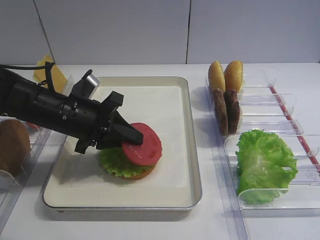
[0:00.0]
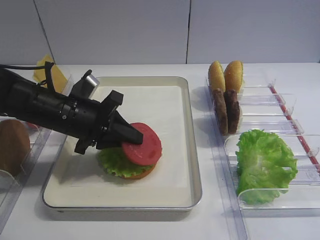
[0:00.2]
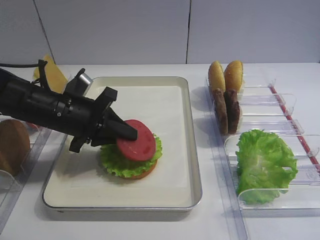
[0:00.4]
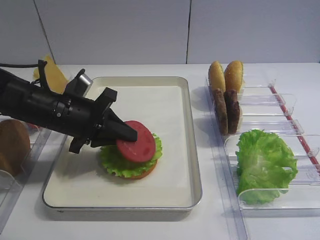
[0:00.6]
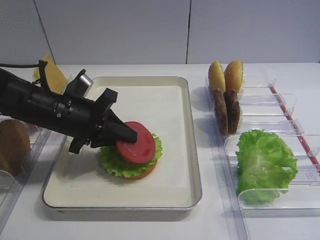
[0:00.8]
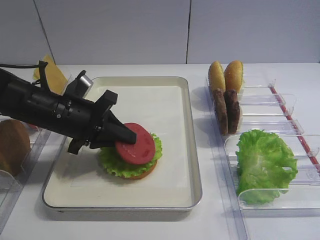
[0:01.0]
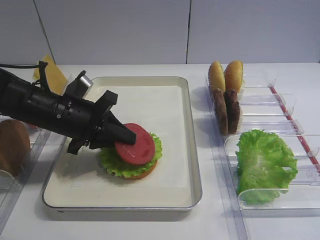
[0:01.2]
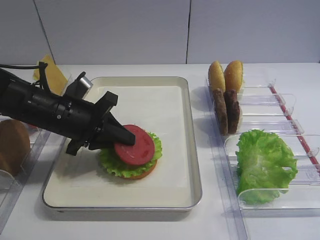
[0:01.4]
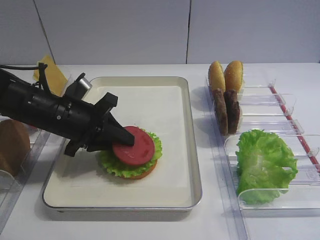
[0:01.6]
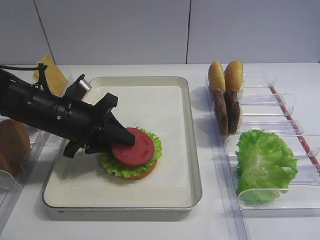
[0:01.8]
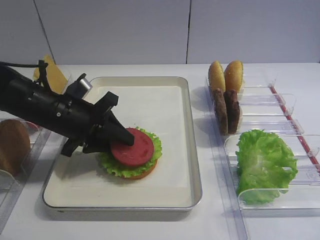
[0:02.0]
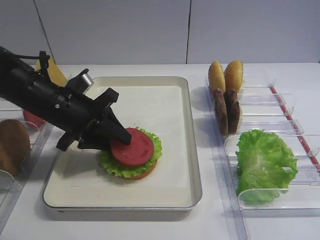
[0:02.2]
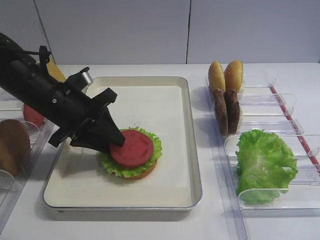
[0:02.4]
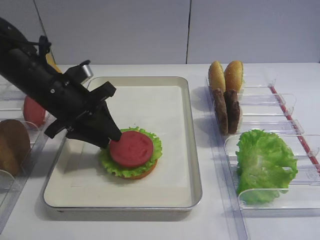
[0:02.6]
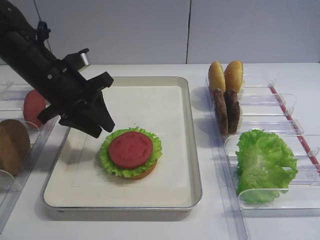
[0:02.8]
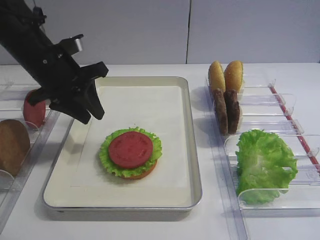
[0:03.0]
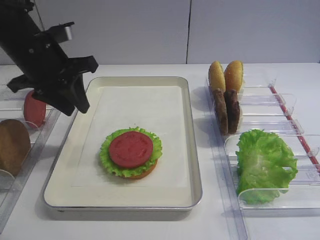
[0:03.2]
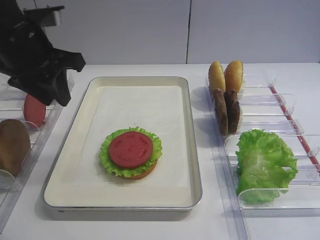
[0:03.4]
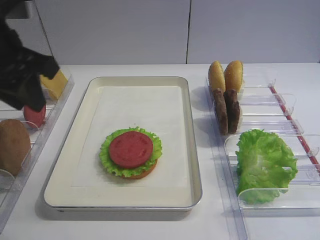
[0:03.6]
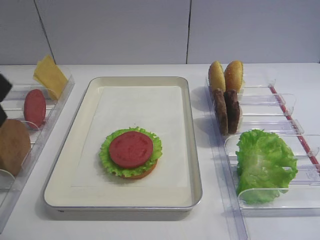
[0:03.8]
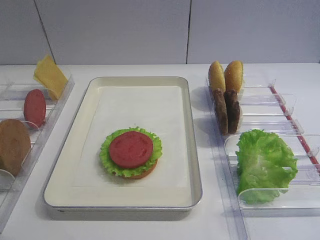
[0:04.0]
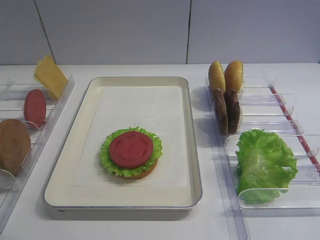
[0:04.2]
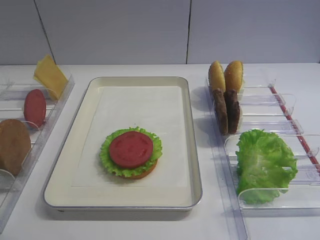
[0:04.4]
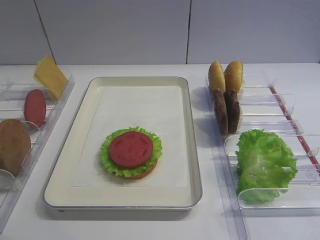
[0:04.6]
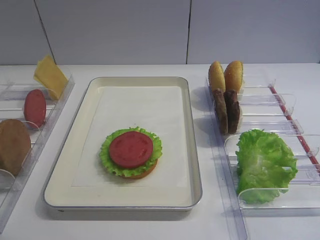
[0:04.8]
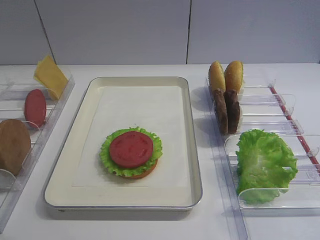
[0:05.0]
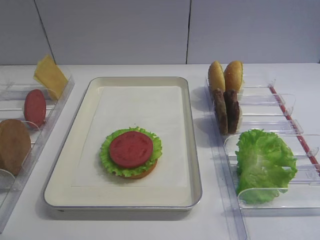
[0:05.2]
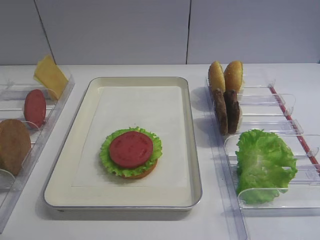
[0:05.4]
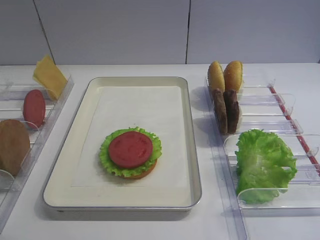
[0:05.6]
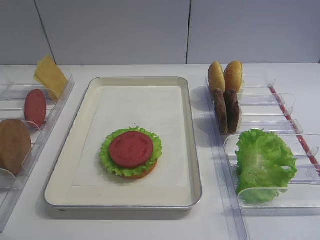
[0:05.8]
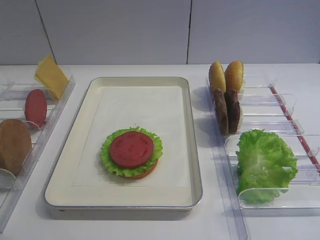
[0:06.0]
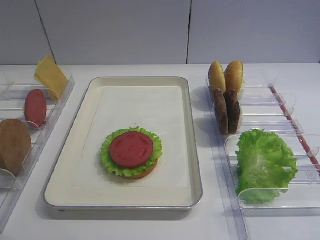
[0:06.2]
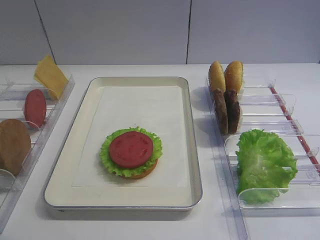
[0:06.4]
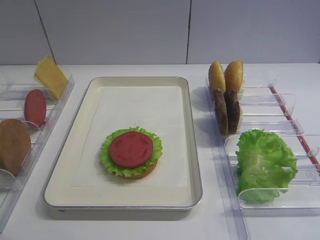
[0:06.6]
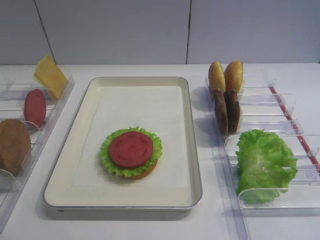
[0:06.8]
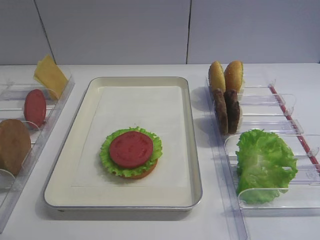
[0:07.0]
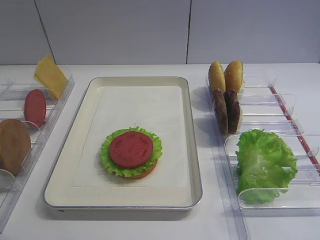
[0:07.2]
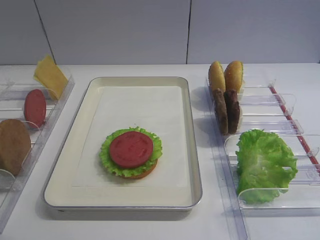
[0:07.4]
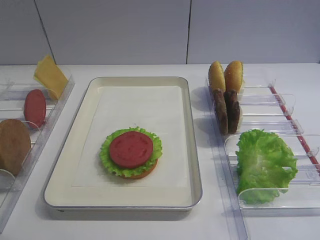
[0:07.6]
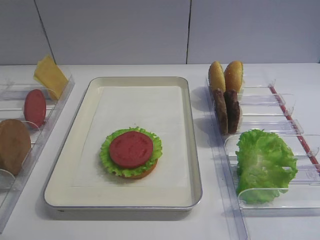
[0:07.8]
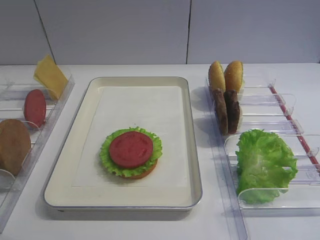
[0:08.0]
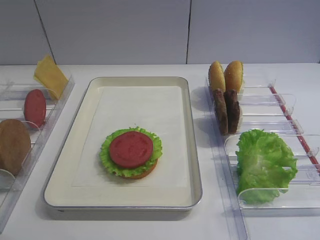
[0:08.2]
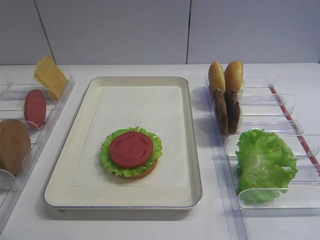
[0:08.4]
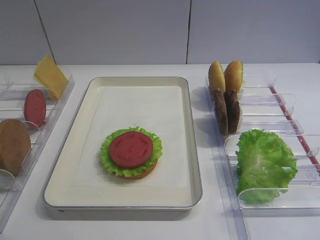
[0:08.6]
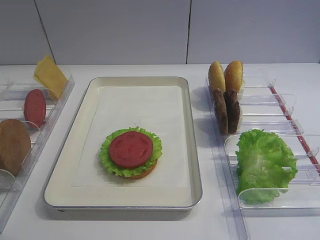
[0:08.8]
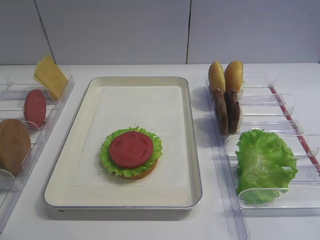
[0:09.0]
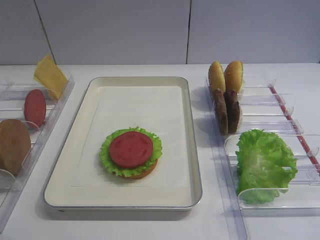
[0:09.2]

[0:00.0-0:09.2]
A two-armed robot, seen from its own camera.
Step, 0.0 to 2.8 s: Place the tomato slice on the lettuce leaf with the left gripper.
0.0 to 1.6 s: The grippers make only small movements.
1.6 to 3.0 s: The left gripper is displaced upward by approximately 10 cm.
3.0 to 4.6 s: The left gripper travels backward by approximately 35 cm.
6.2 to 9.2 s: Both grippers stay about where they are.

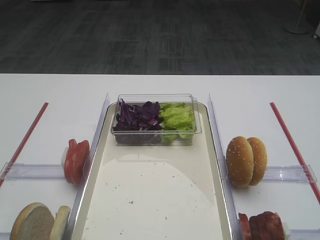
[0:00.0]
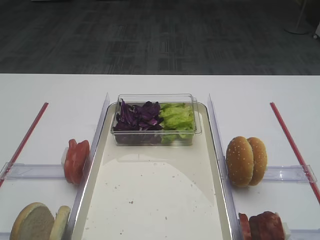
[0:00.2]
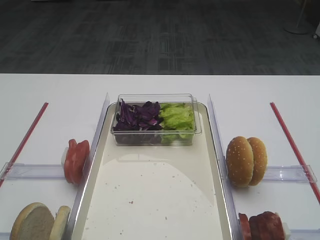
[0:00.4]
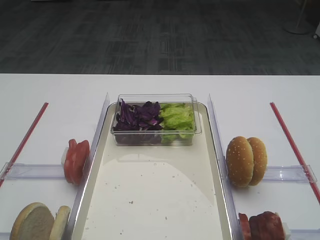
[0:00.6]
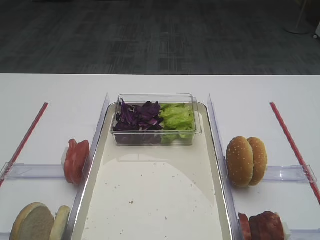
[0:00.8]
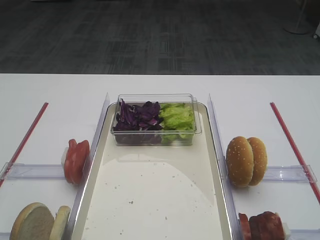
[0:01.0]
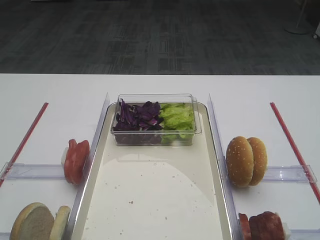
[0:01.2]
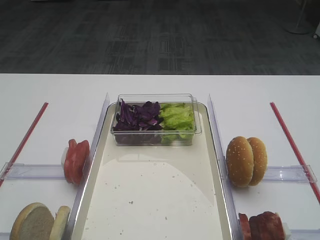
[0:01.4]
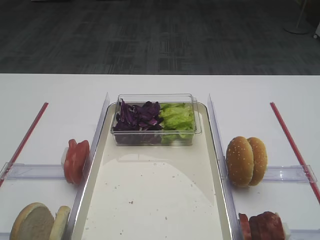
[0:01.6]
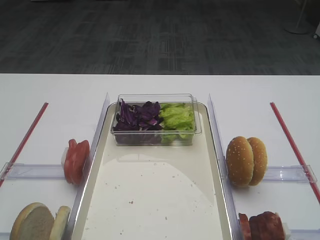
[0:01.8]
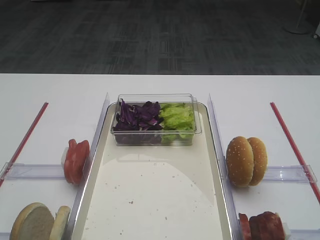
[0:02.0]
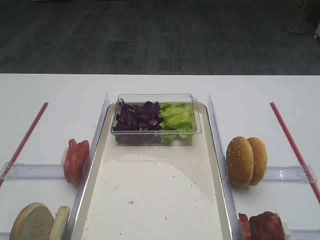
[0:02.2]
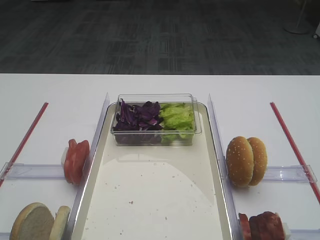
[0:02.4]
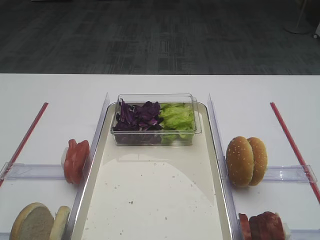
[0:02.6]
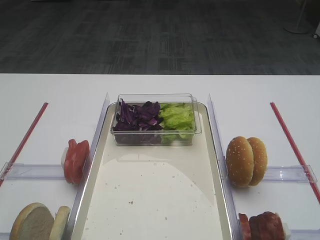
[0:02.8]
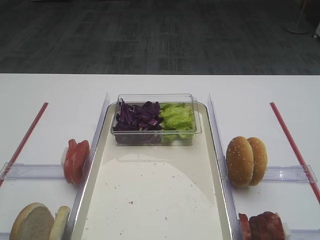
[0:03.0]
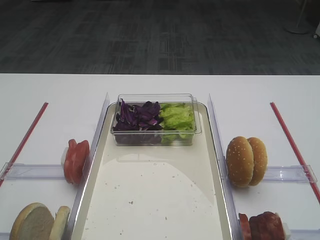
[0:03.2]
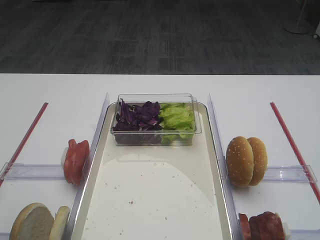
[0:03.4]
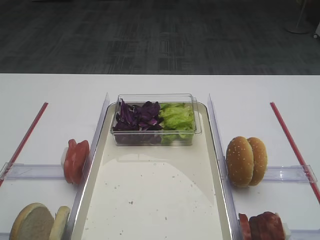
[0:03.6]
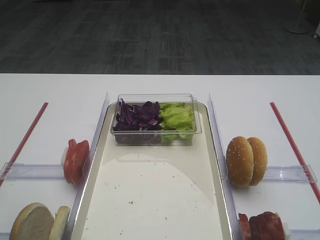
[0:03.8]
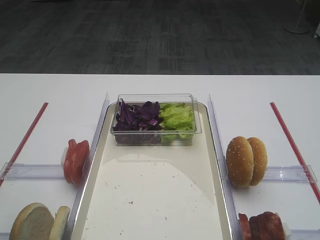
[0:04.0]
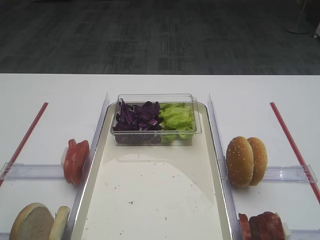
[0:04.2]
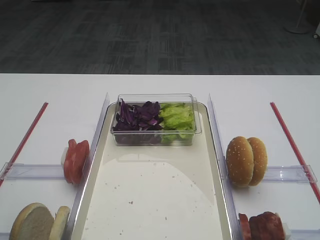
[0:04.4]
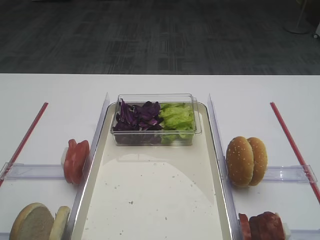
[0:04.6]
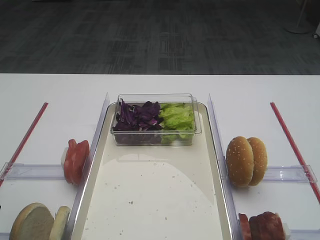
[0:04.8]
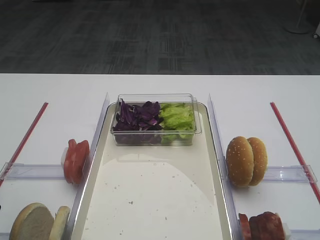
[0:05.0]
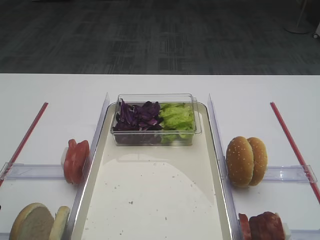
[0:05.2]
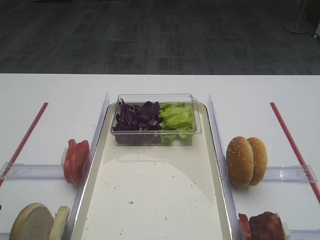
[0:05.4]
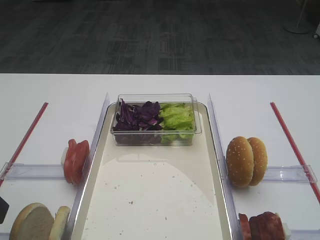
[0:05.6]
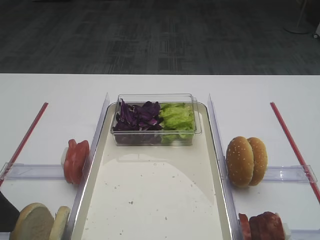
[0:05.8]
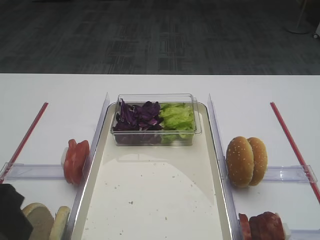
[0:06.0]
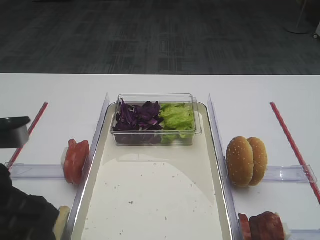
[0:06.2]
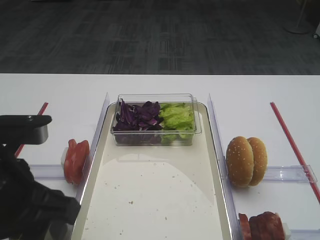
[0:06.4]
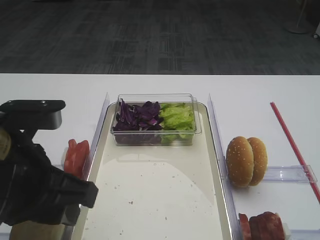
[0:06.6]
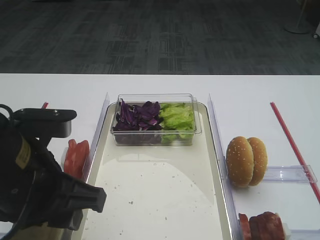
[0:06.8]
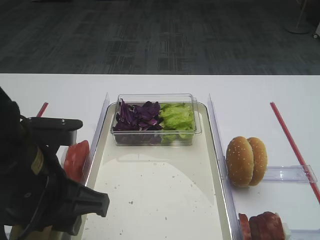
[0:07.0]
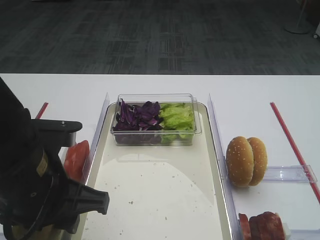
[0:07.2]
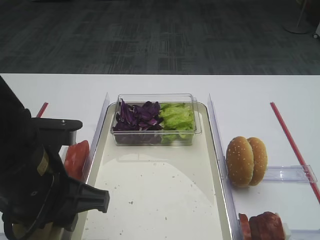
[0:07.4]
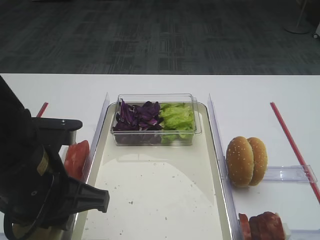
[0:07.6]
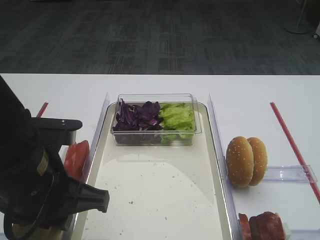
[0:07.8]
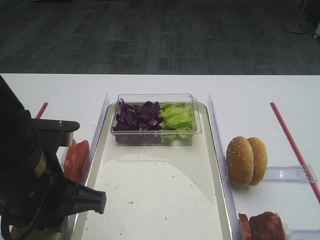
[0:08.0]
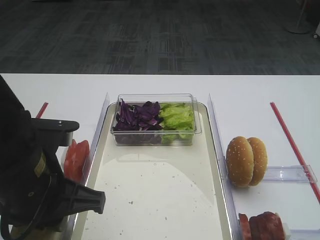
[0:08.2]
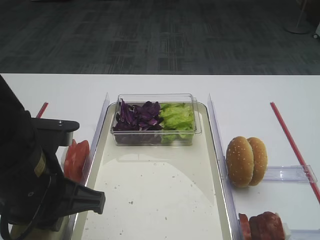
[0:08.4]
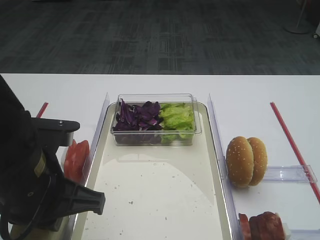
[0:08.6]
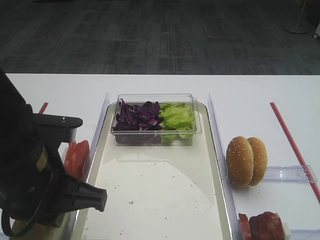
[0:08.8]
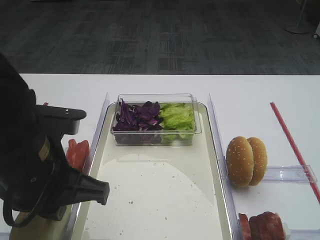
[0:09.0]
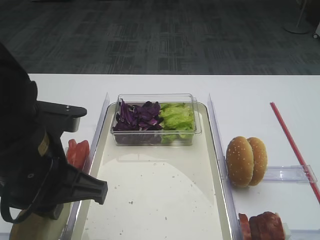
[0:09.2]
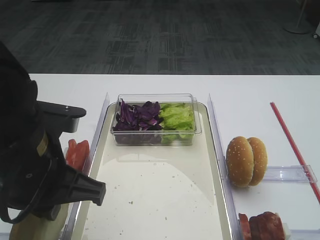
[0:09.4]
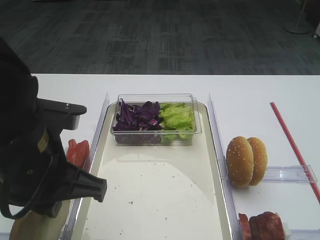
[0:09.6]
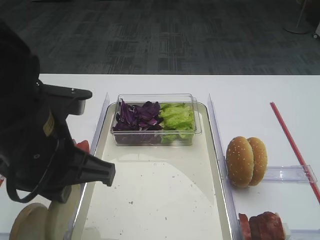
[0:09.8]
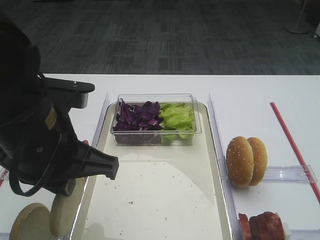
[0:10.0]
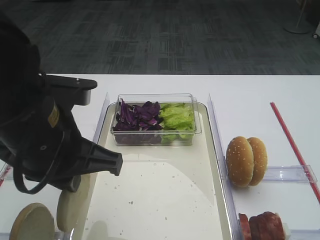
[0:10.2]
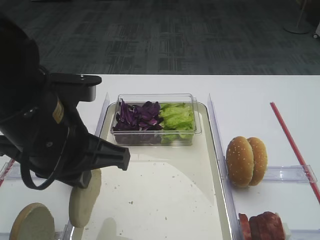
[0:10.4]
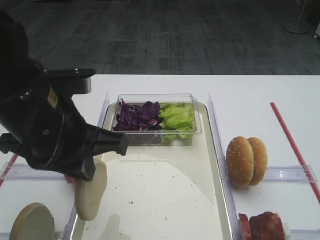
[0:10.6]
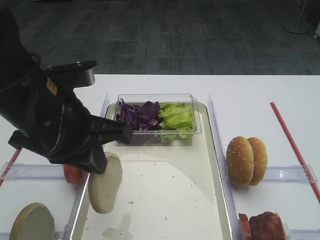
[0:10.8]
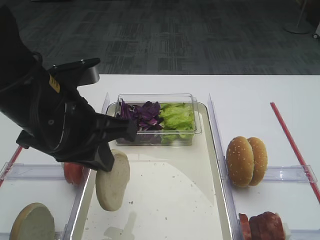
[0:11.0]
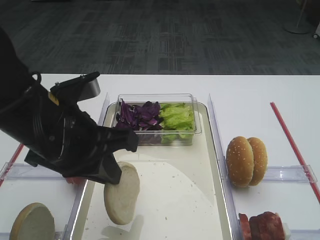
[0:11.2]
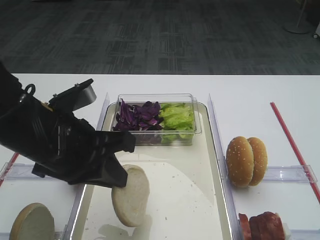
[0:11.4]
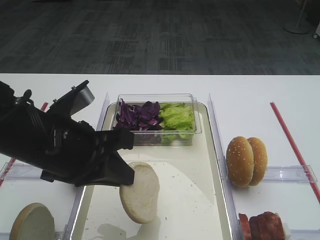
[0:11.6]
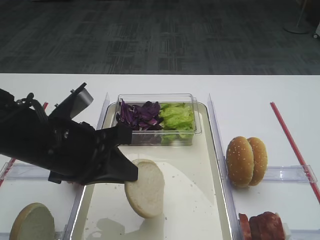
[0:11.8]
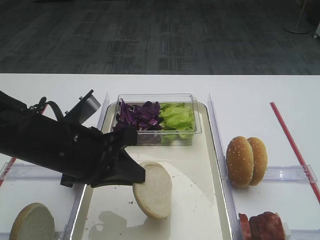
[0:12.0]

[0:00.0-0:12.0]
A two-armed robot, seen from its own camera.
Step, 0.0 to 9.8 s: Pick up the bread slice with the left gripper.
4.4 to 6.0 s: The left gripper is displaced to the right by roughly 5 cm.
6.0 to 7.6 s: The left gripper moves to the right, some 10 cm, and closes its fingers.
7.6 to 9.0 s: The left gripper closes.
9.0 to 10.4 s: There are only small adjustments of the grippers.
10.4 to 12.0 s: The left gripper travels downward by about 5 cm.

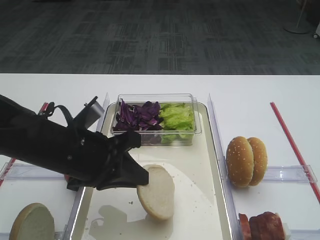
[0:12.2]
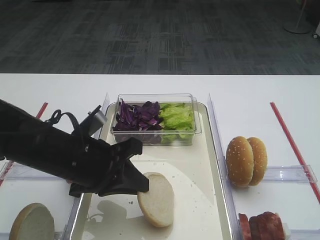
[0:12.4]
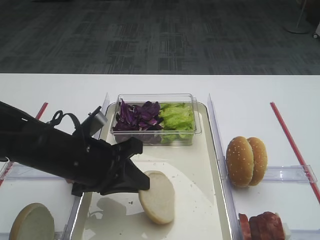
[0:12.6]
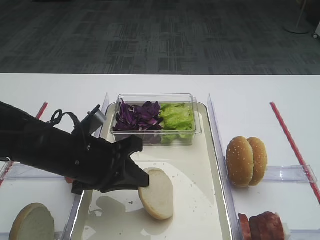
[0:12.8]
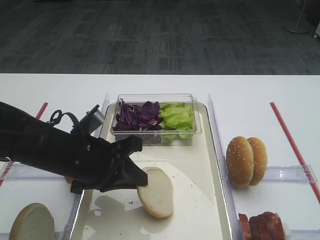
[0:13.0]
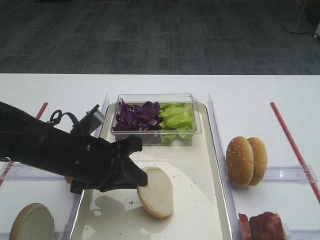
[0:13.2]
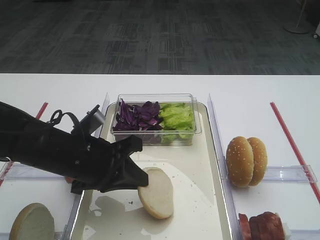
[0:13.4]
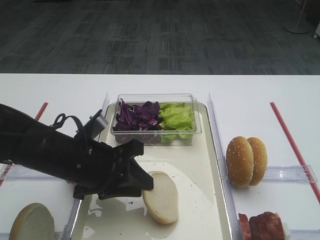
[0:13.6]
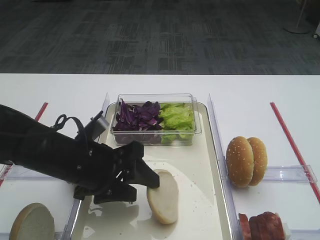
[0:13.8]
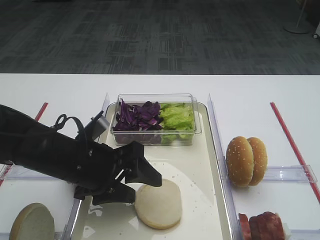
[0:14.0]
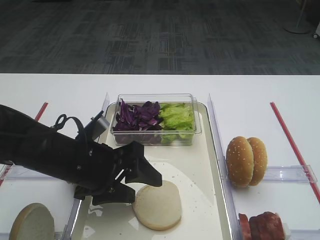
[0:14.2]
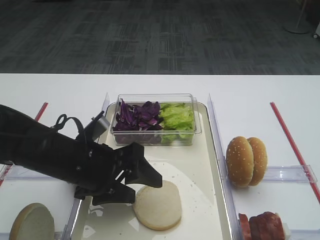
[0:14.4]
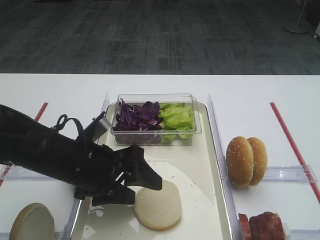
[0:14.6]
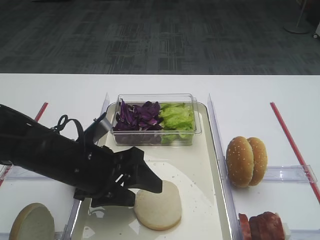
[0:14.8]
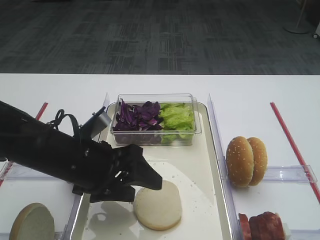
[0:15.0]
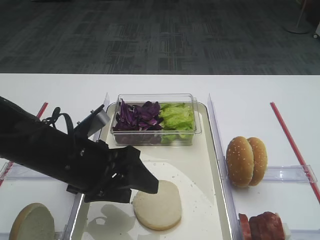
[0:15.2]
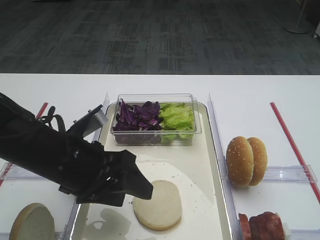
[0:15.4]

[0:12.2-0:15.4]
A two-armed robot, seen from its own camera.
12.2 to 13.8 s: The left gripper opens.
13.8 to 15.4 s: There are only small adjustments of the grippers.
